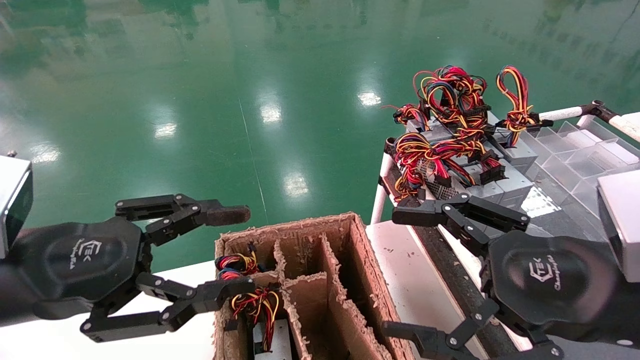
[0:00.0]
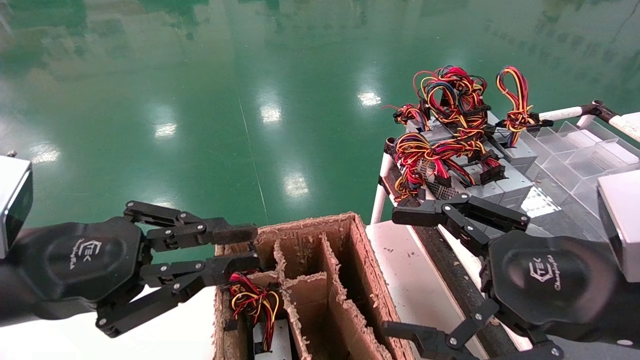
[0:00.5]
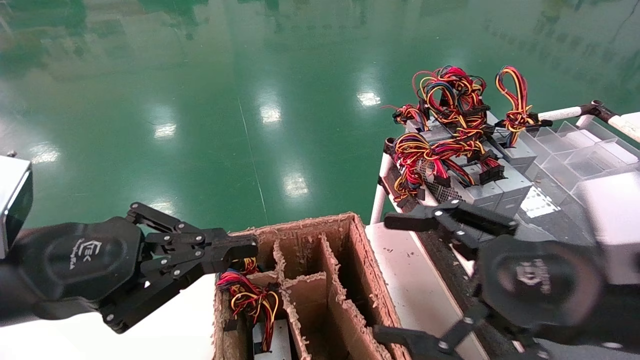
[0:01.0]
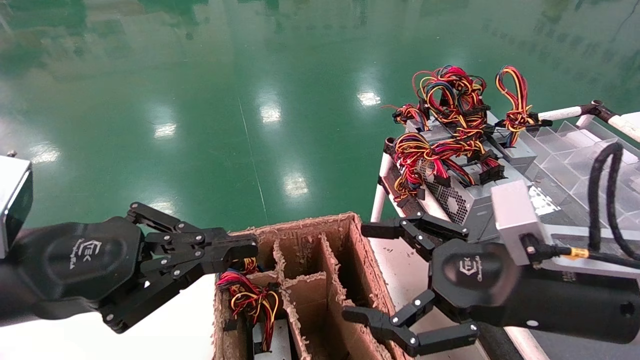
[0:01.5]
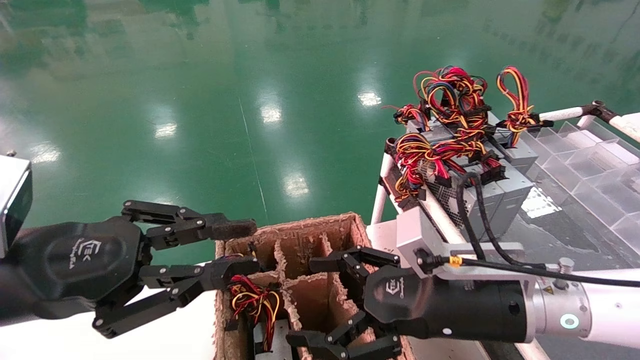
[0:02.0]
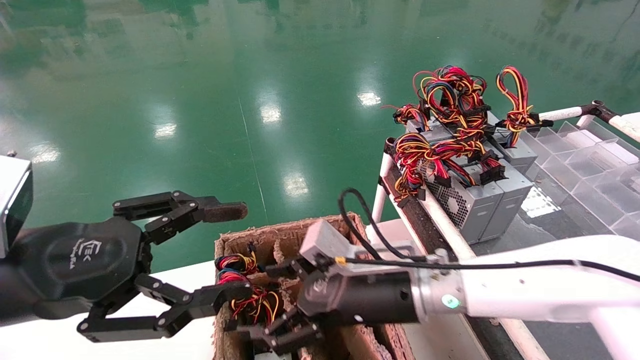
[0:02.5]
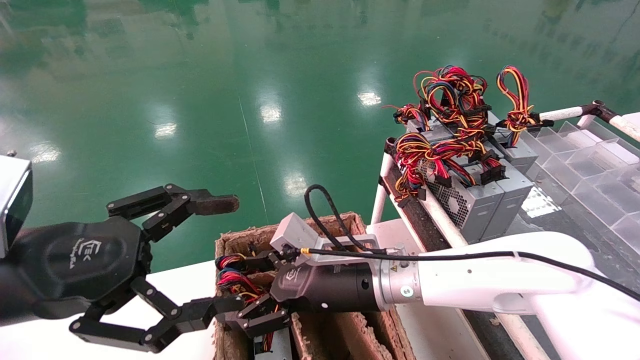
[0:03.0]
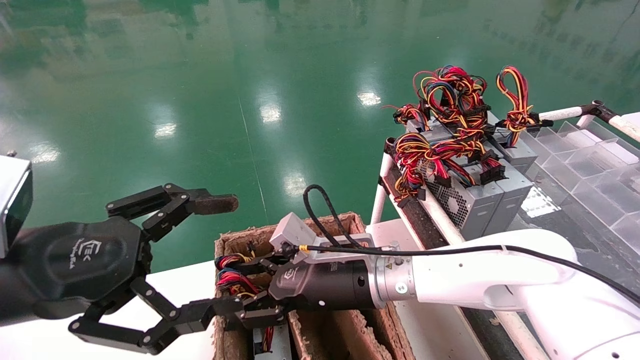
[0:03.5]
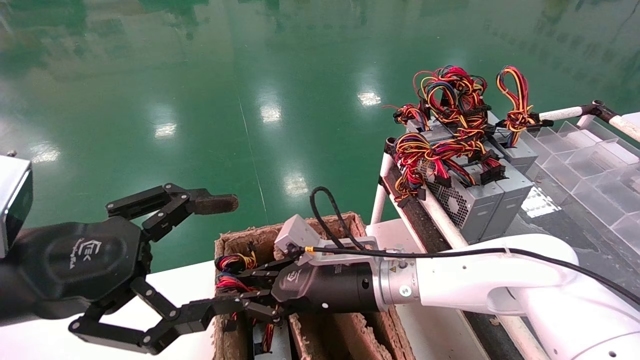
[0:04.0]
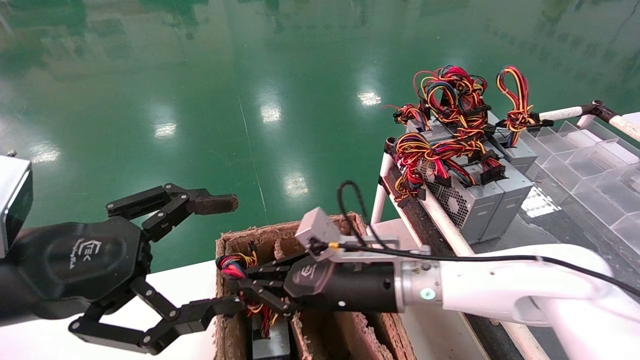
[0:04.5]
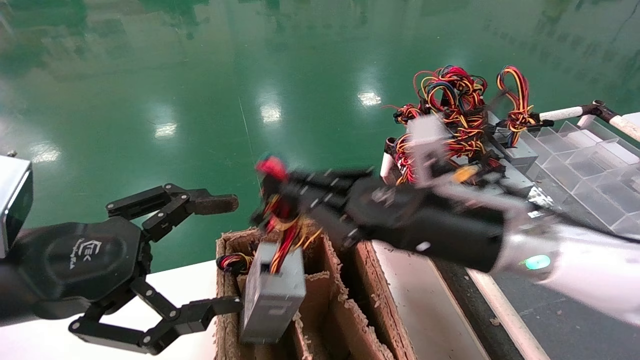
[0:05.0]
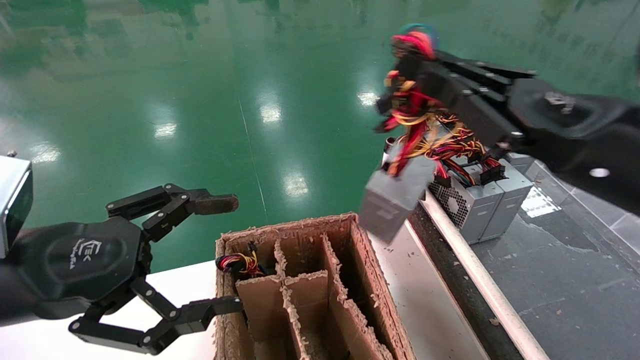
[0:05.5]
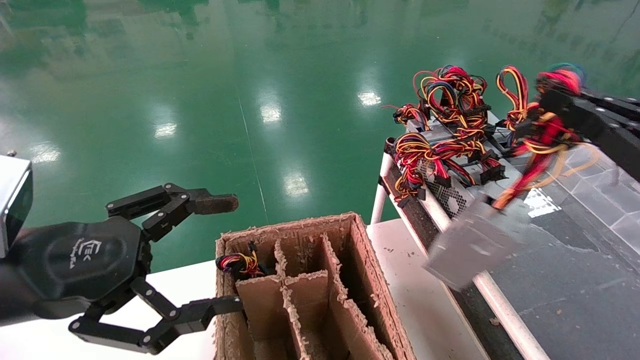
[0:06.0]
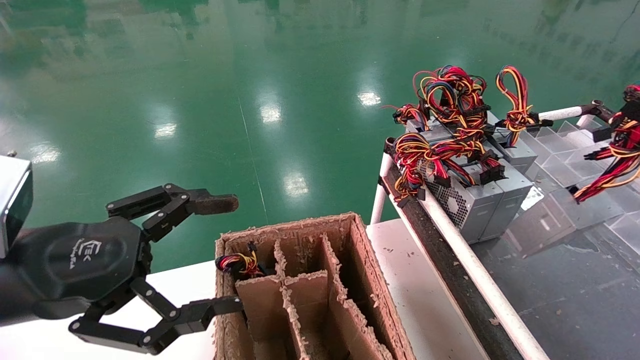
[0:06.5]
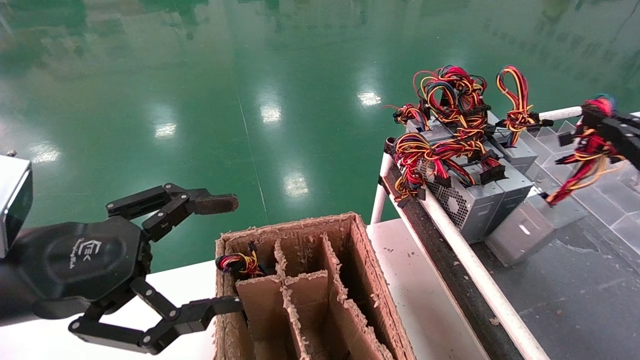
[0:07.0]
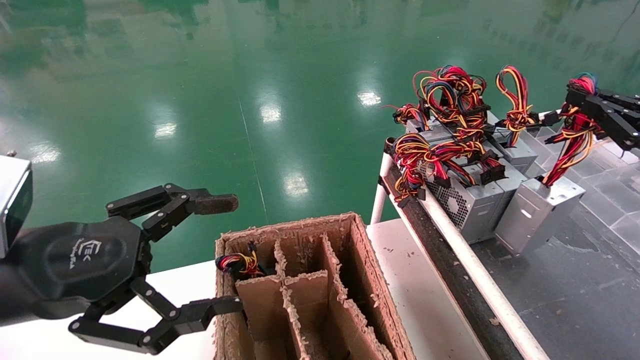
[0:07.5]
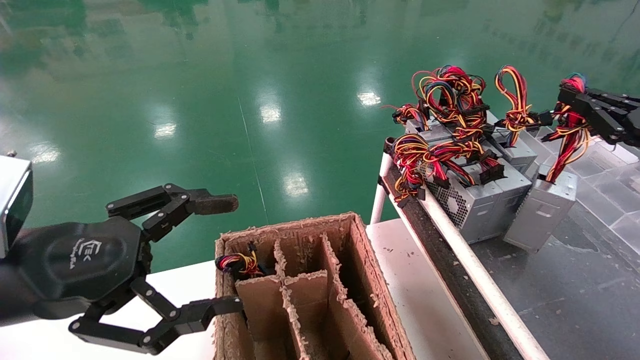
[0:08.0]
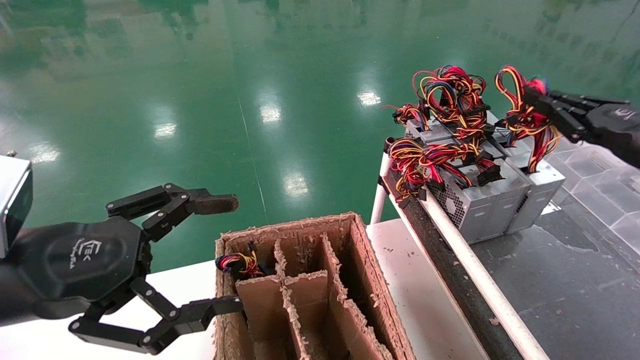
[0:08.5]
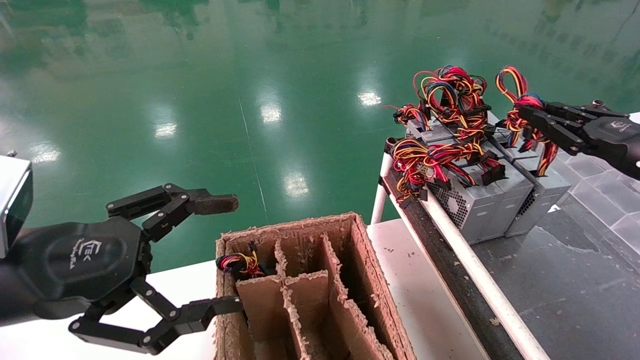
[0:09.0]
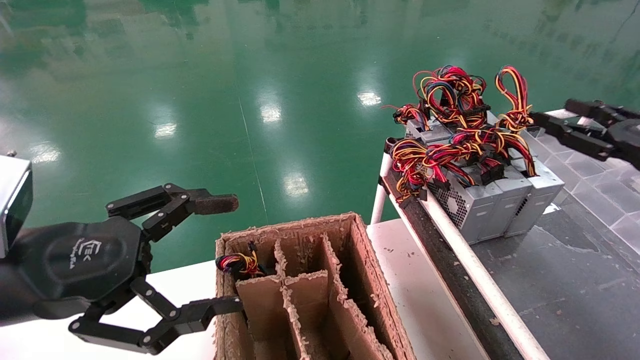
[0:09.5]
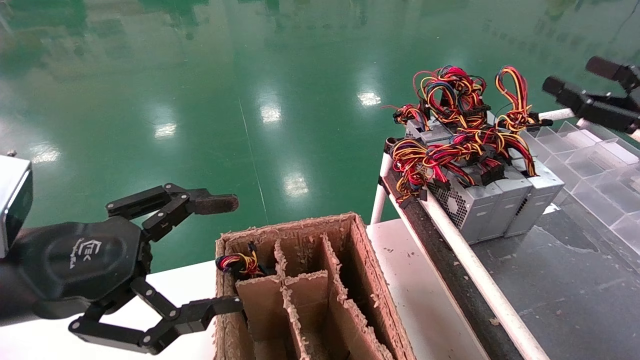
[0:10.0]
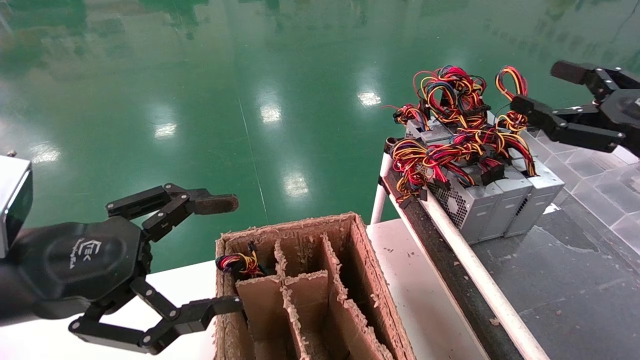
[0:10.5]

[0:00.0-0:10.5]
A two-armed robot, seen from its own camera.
Step, 0:01.0 to 0:04.0: Grab and lift the power supply from the large box.
Step, 0:04.5 to 0:09.0: Place the power supply on the operating table.
0:00.0 to 0:02.0: The right gripper is displaced to the left, forward and downward by approximately 15 cm; the left gripper closes its fingers.
0:02.0 to 0:04.0: The left gripper opens up; the right gripper goes approximately 15 cm to the left and forward, and closes its fingers.
0:04.0 to 0:06.5: The right gripper shifts approximately 40 cm to the right.
0:06.5 to 0:08.5: The right gripper moves forward, roughly 15 cm.
0:08.5 to 0:10.5: The right gripper changes place by roughly 5 cm, and opens up.

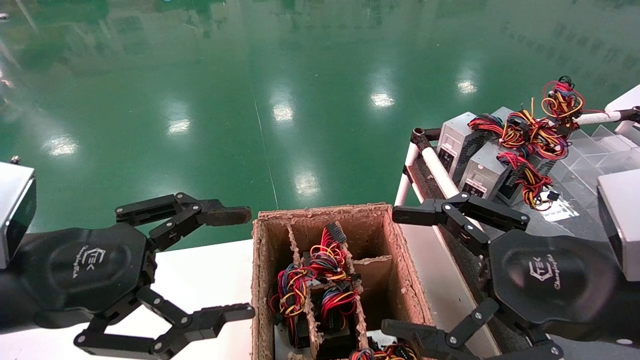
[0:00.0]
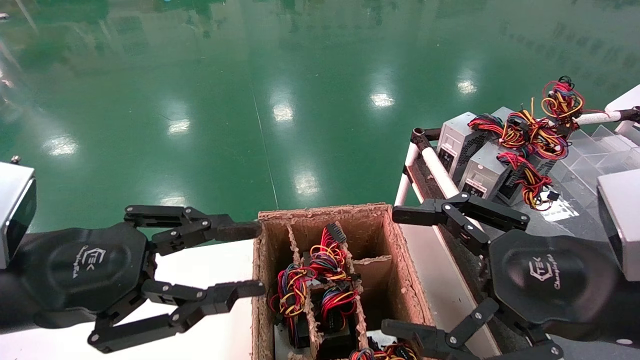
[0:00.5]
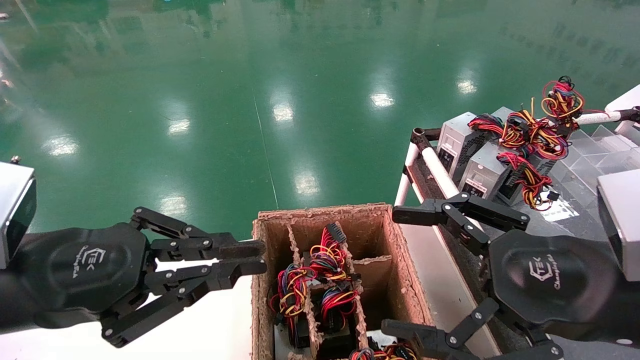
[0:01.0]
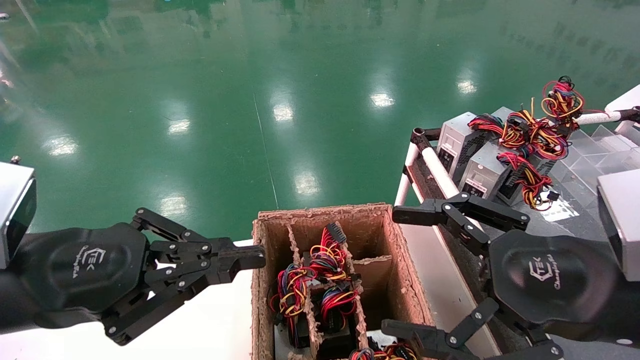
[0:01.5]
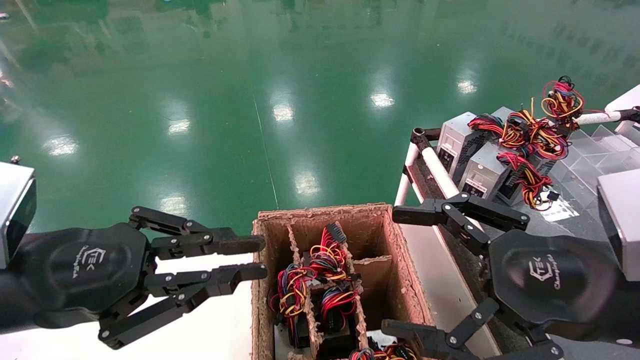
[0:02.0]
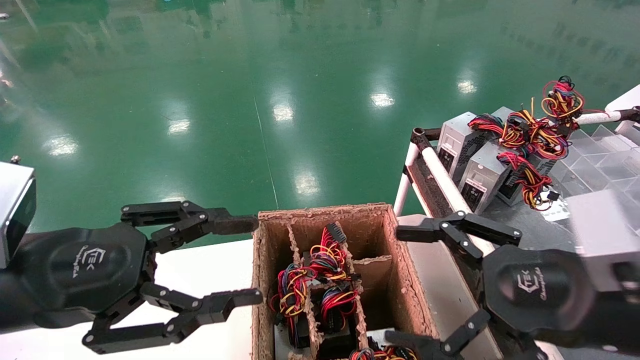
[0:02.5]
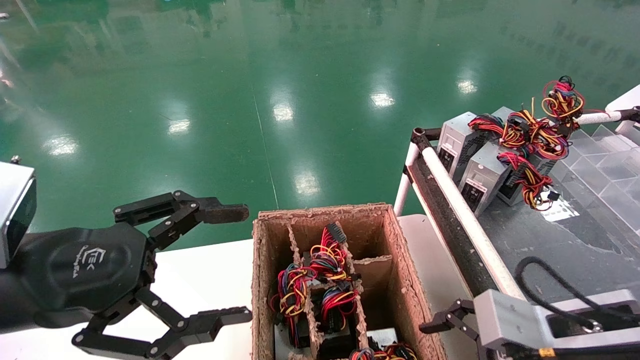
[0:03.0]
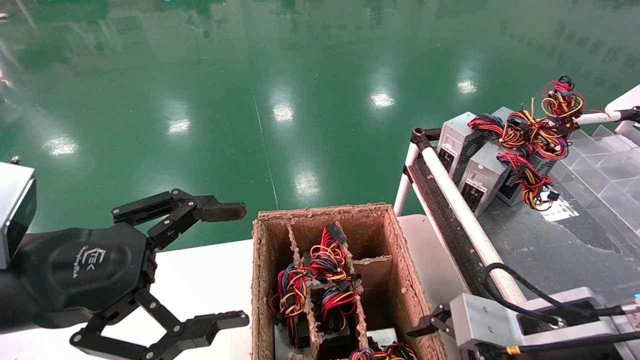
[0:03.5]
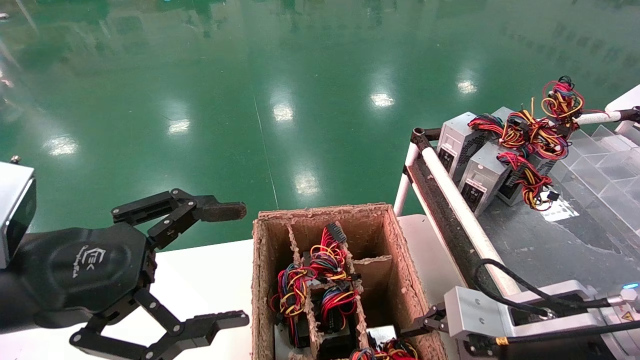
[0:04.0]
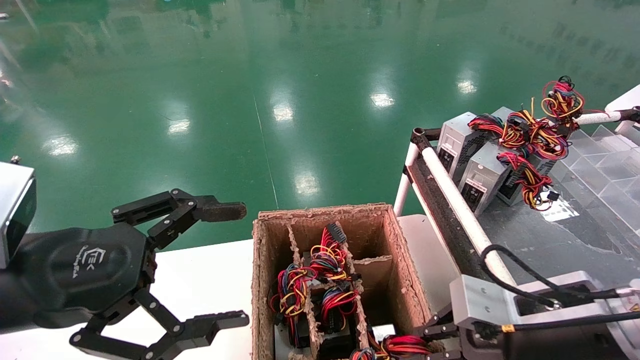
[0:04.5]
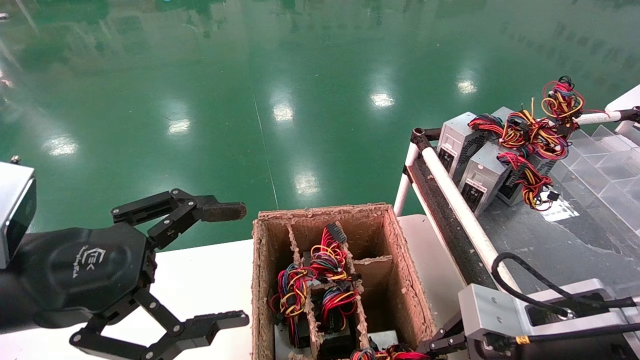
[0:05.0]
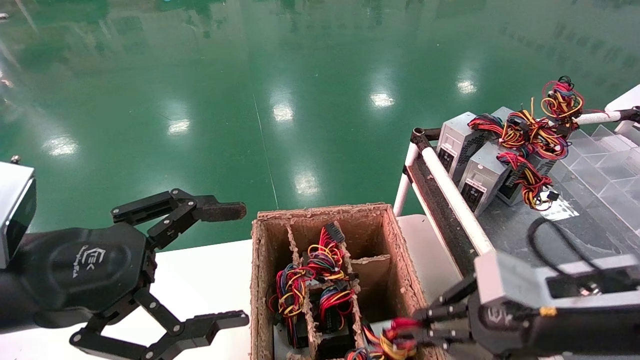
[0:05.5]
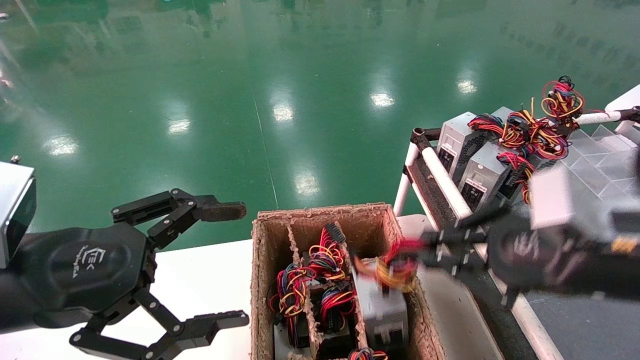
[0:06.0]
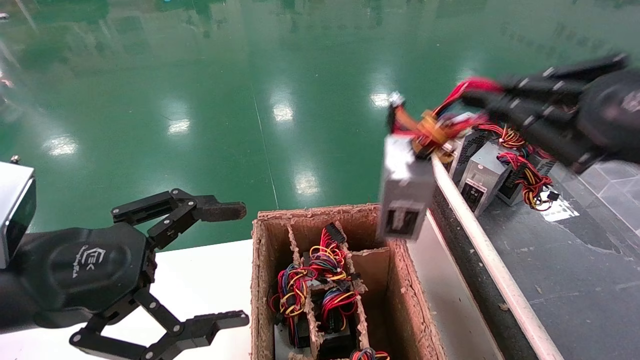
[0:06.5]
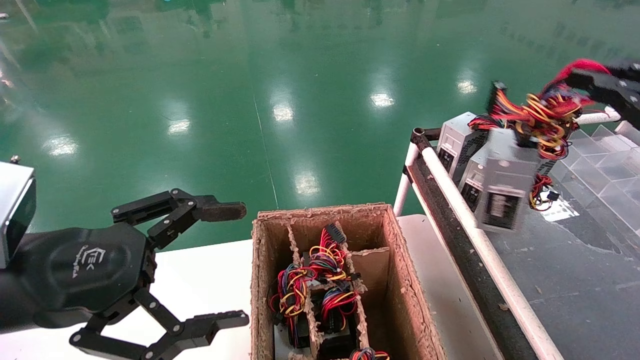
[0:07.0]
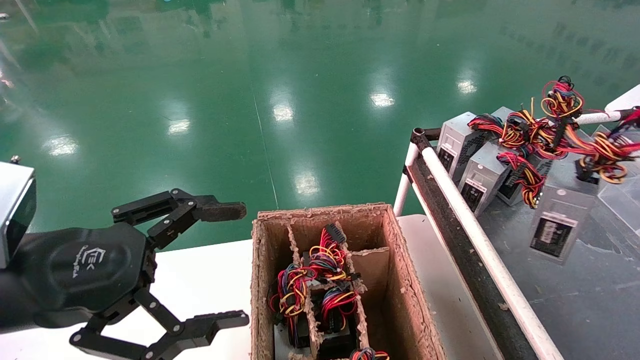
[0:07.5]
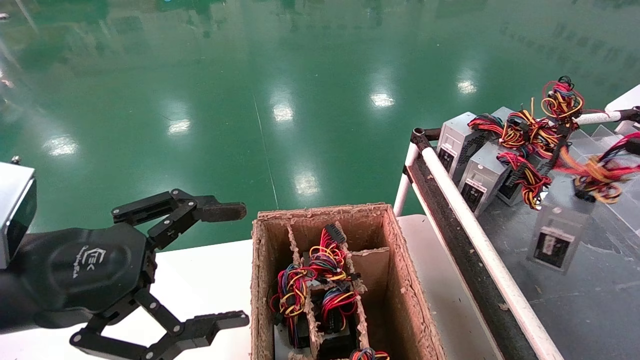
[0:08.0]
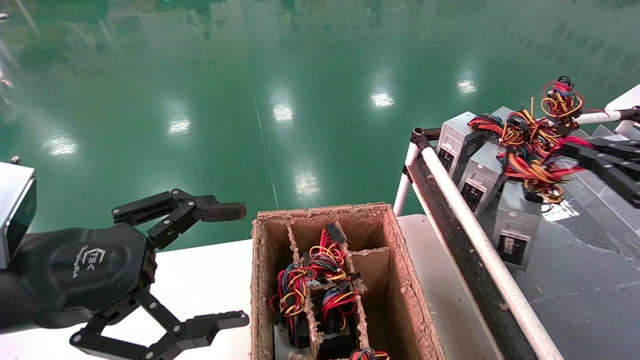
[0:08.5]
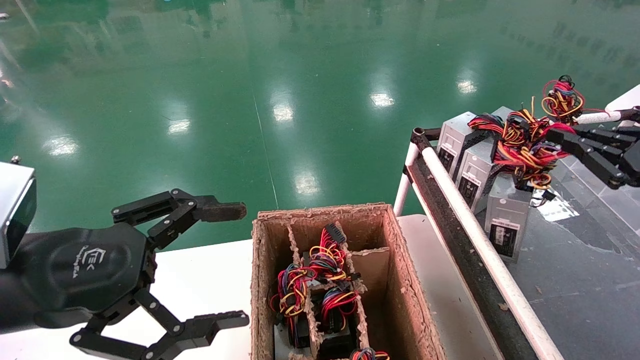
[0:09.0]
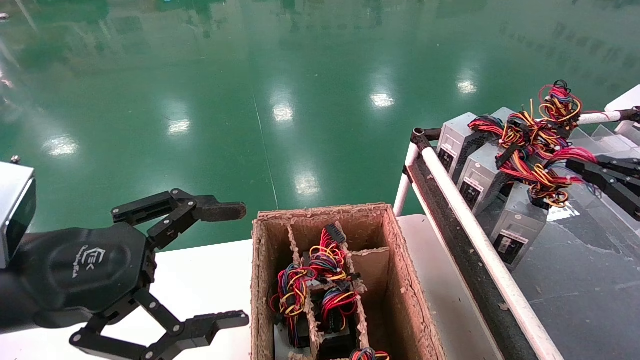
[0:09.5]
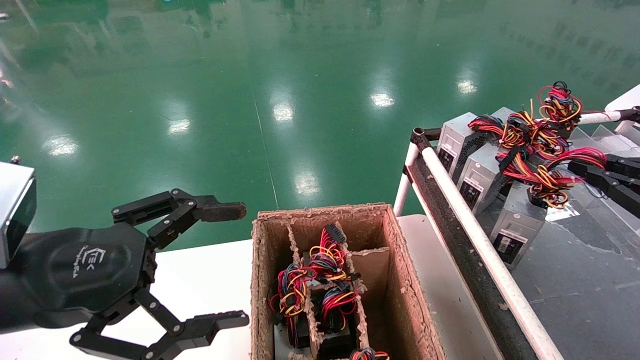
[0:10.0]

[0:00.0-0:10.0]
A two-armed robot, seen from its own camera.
Step, 0:01.5 to 0:05.0: Grab and lift the power supply from the large box.
Step, 0:05.5 to 0:10.0: Place the power supply on the operating table.
0:00.0 to 0:02.0: The left gripper closes up.
0:02.0 to 0:04.0: The left gripper opens its fingers; the right gripper is displaced downward and forward by roughly 10 cm, and closes its fingers.
0:04.0 to 0:06.0: The right gripper heads upward, covering some 10 cm, and closes.
0:06.0 to 0:08.0: The right gripper is displaced to the right by some 20 cm.
0:08.0 to 0:10.0: The right gripper goes approximately 5 cm forward.
